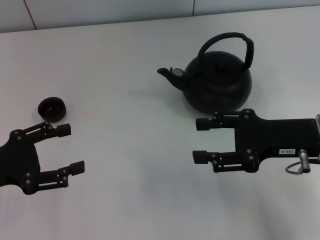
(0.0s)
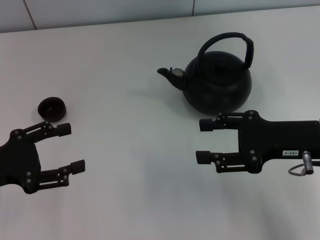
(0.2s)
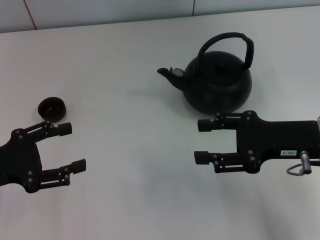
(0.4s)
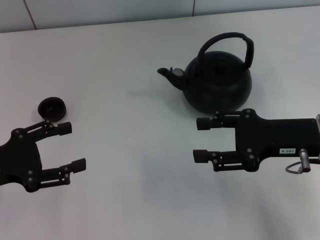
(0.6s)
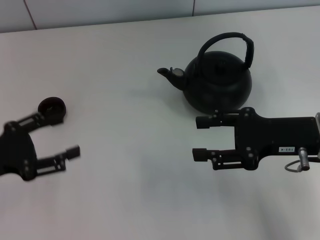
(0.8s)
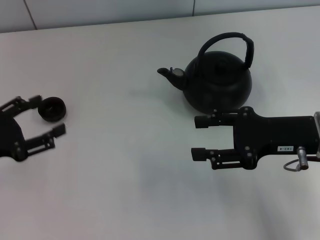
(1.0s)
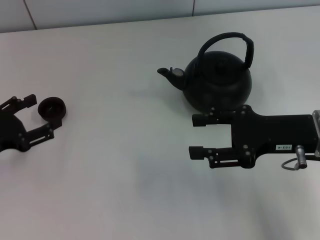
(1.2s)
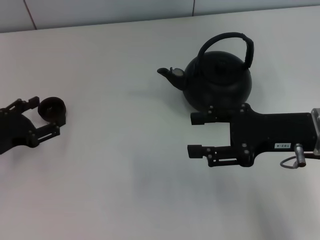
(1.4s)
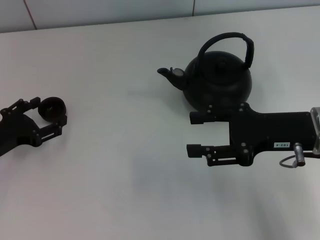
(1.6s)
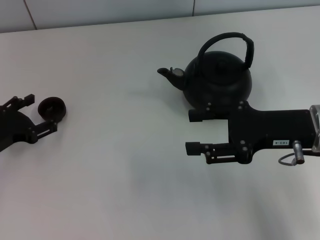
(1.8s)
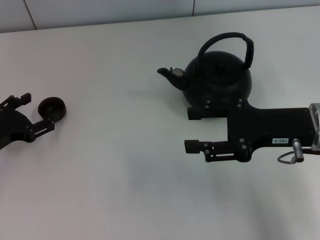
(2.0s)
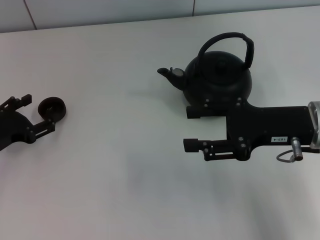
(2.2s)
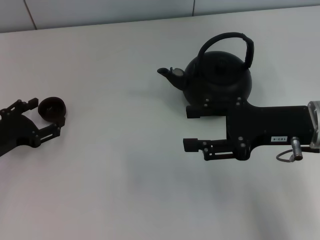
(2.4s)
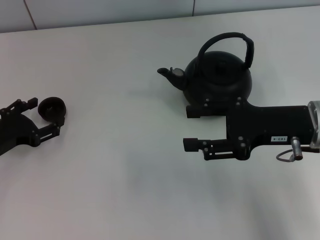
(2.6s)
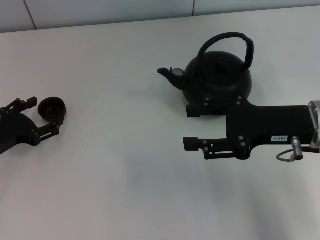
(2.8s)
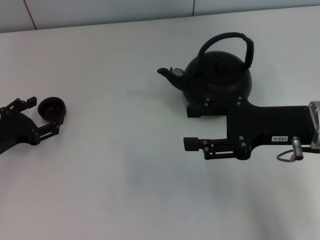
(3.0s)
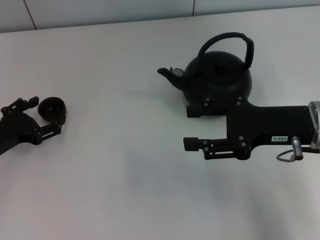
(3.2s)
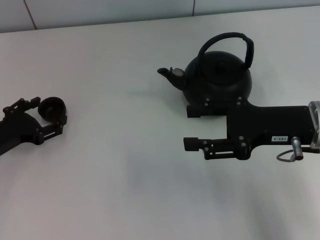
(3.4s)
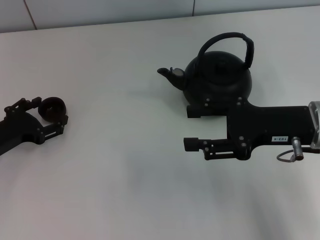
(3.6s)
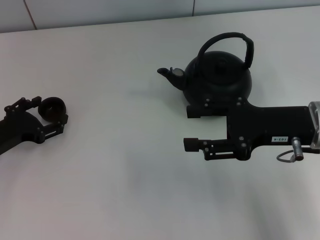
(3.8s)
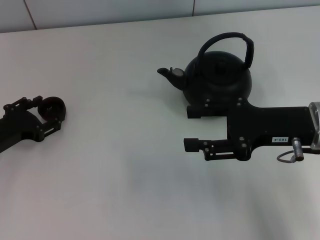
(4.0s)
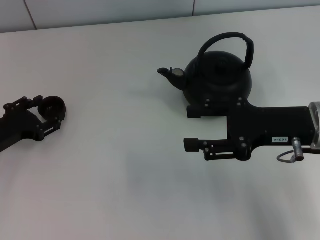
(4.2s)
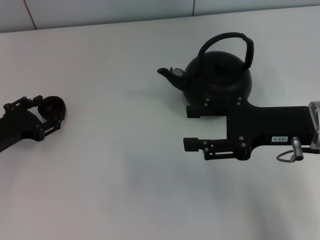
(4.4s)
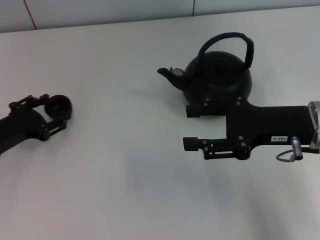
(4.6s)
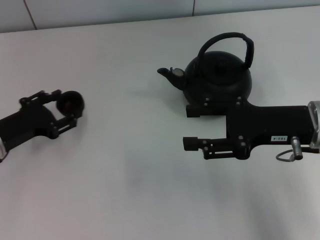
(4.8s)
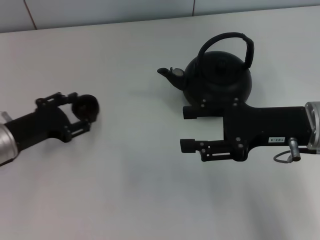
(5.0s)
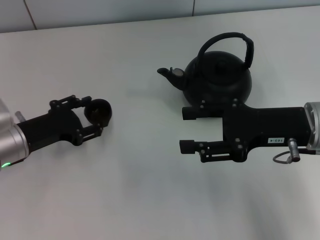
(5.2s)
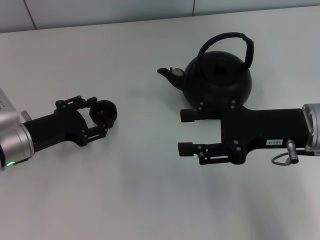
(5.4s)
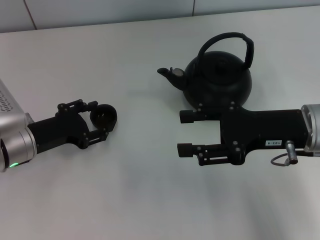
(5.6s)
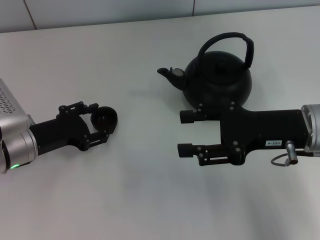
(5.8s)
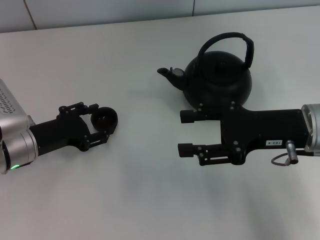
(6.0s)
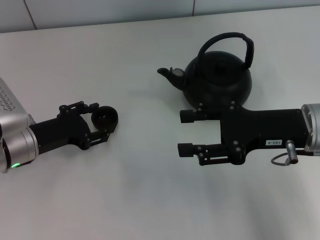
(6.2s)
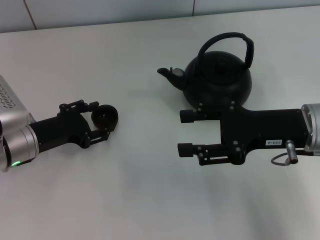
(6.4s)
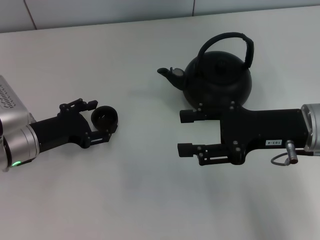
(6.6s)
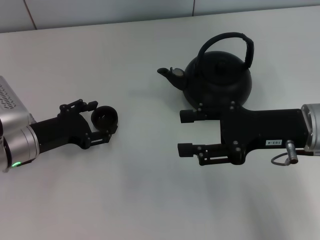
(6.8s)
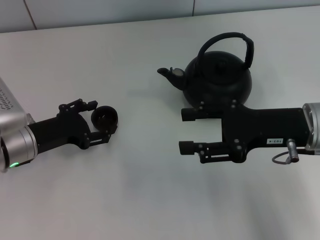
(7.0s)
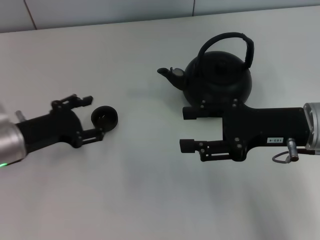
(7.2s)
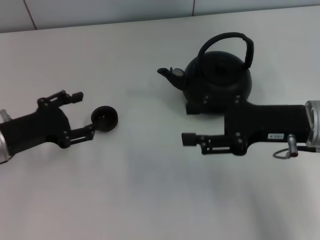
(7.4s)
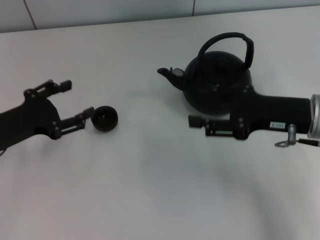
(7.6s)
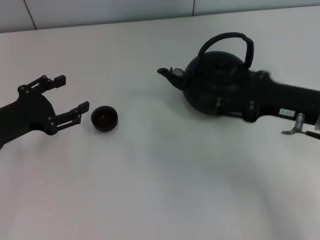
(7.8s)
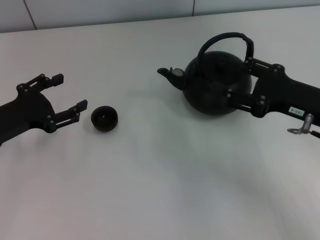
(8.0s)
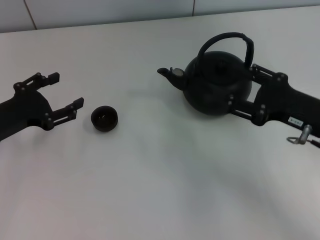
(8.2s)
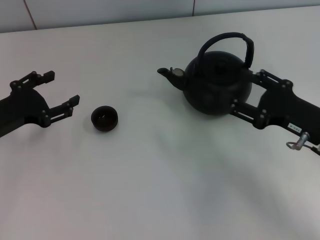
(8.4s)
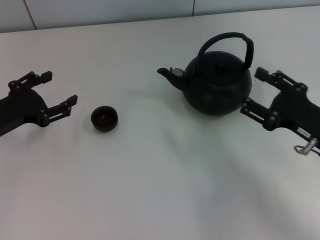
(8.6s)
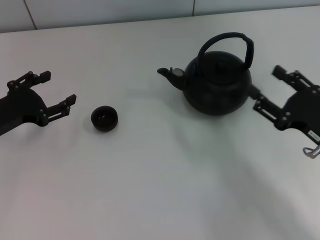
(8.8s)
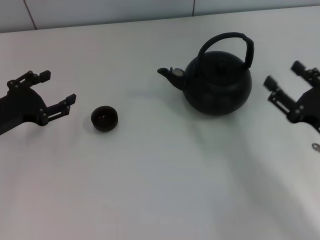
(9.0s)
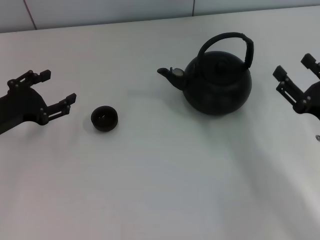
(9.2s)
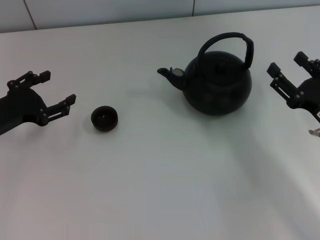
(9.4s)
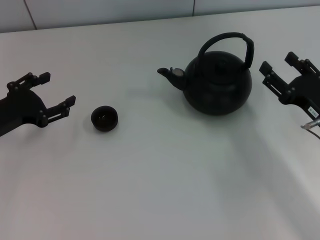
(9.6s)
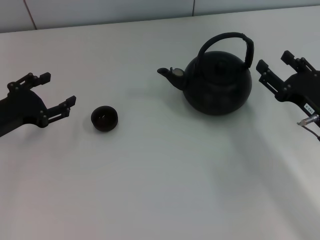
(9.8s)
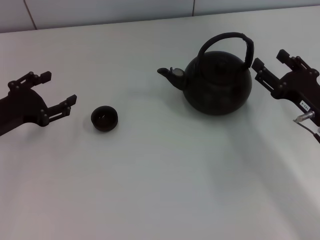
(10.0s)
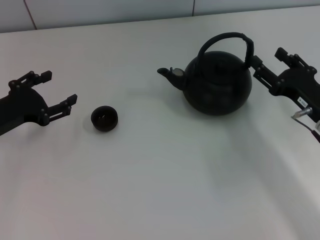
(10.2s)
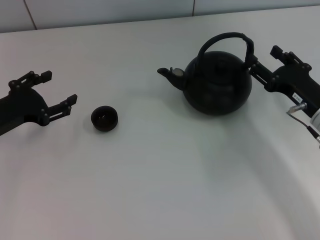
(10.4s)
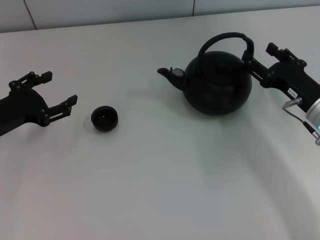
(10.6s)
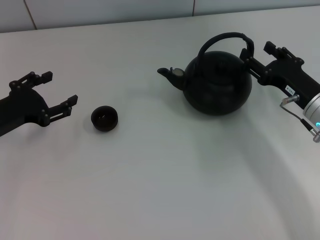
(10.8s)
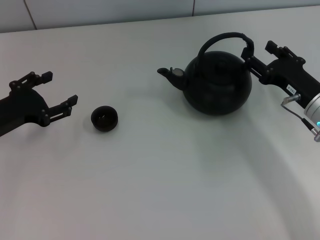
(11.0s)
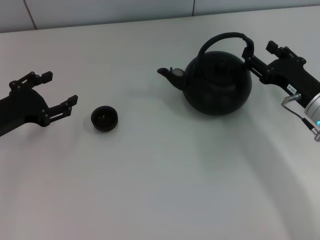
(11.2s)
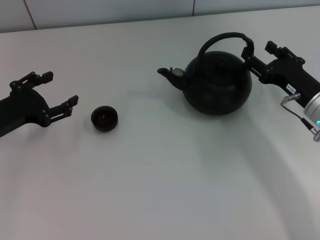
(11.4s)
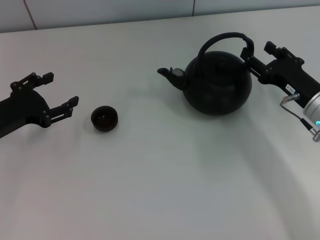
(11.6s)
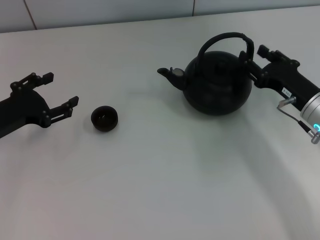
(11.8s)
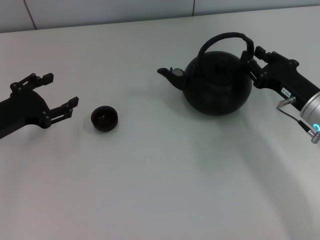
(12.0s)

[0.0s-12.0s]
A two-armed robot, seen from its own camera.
Task of the whole recording: Grasp the handle of the teapot with one hand and pour tea into the teacup.
Step, 0.0s to 5.0s: Pick up the teacup with the left gripper.
Step, 5.2s to 7.8s: Place the teacup in the center of view with the left gripper.
0.0s to 1.6s: The left gripper travels downward by about 5 cm.
1.6s to 3.0s: The two grippers keep their place.
3.0s to 4.4s: The left gripper closes up.
4.4s to 6.0s: The left gripper shifts about 5 cm to the right, and opens up.
6.0s to 7.6s: The left gripper ends up roughly 5 cm from where it was, and opens.
7.6s to 9.0s: The right gripper shifts some 10 cm backward and downward.
9.0s to 10.4s: The right gripper heads forward, covering approximately 5 cm.
10.4s to 12.0s: The grippers stay close to where they were, moving slightly.

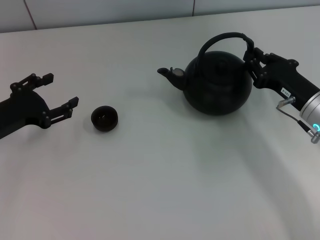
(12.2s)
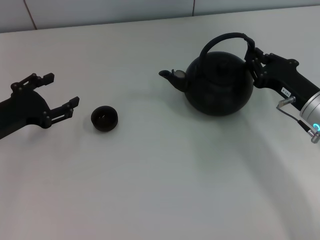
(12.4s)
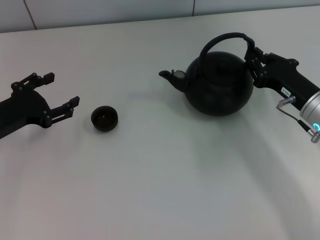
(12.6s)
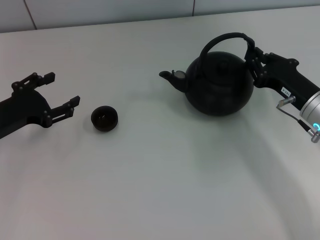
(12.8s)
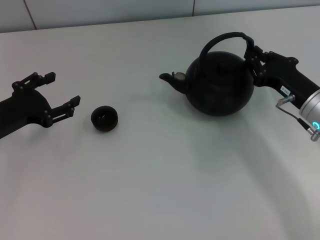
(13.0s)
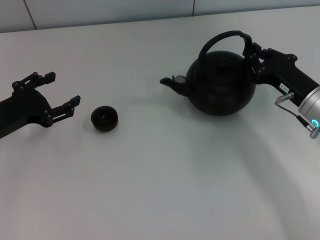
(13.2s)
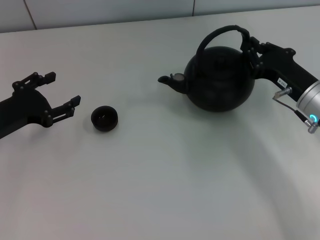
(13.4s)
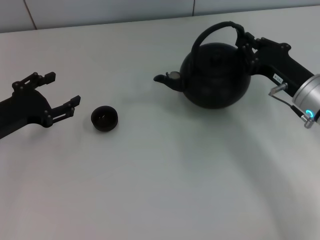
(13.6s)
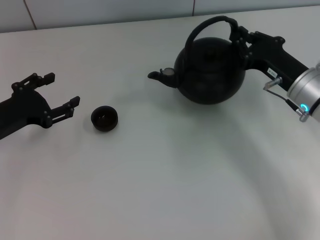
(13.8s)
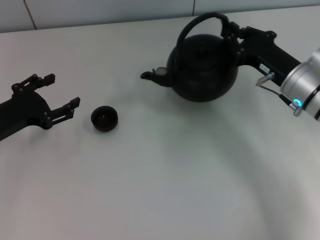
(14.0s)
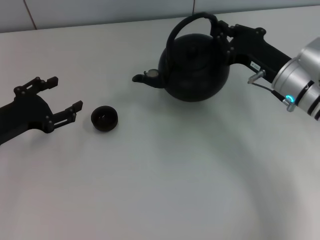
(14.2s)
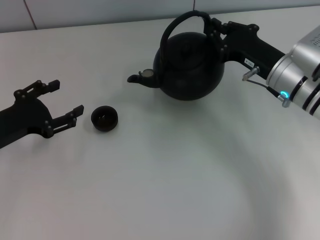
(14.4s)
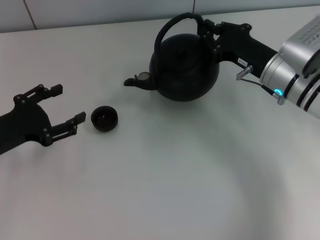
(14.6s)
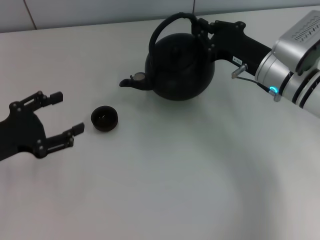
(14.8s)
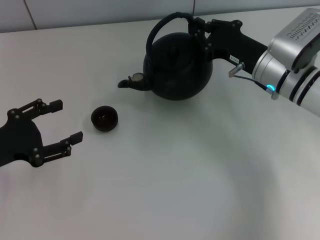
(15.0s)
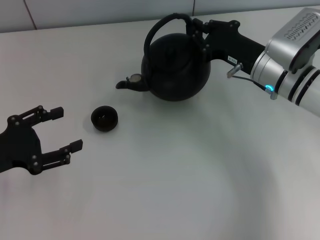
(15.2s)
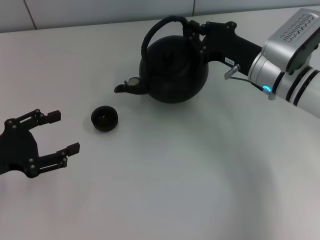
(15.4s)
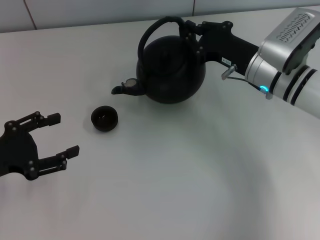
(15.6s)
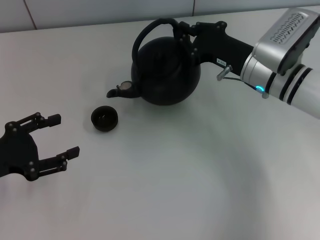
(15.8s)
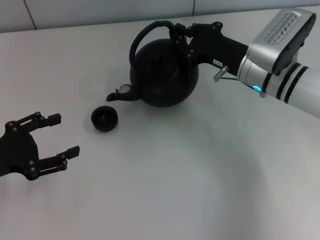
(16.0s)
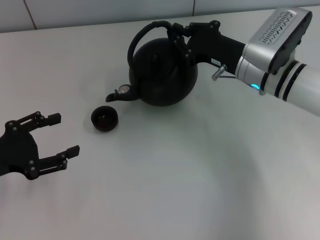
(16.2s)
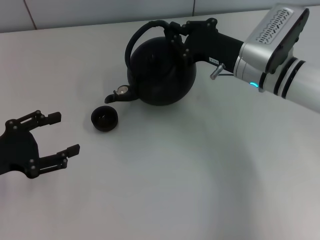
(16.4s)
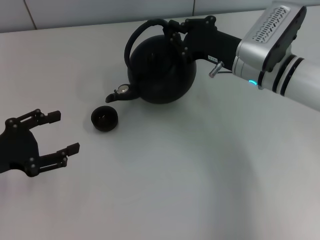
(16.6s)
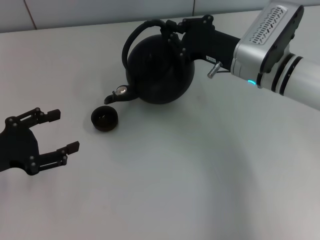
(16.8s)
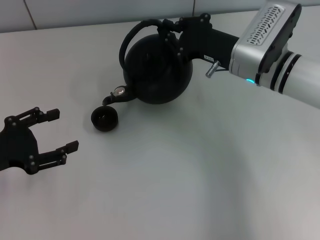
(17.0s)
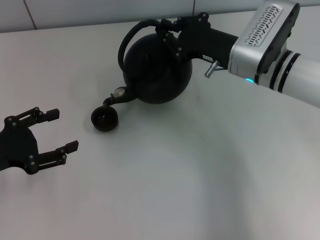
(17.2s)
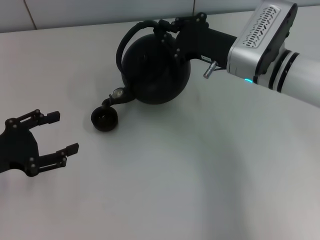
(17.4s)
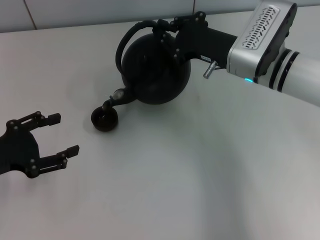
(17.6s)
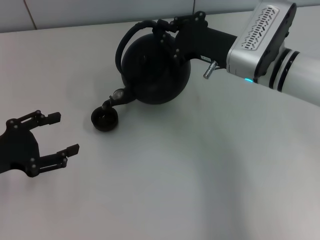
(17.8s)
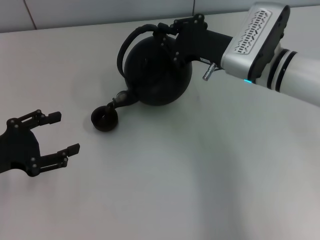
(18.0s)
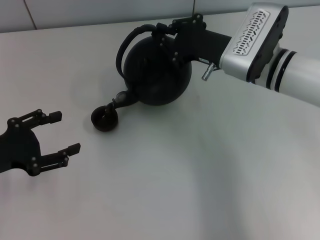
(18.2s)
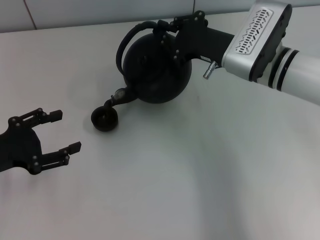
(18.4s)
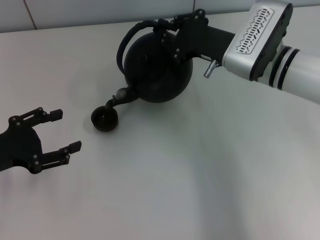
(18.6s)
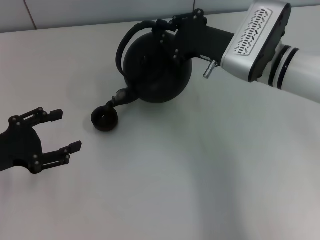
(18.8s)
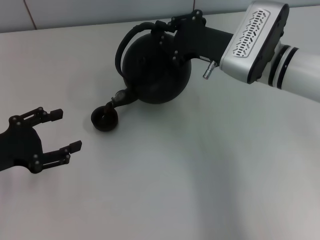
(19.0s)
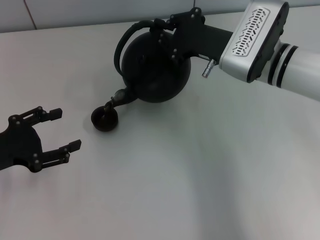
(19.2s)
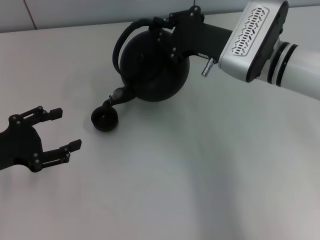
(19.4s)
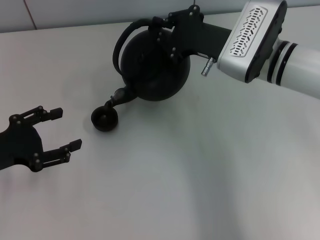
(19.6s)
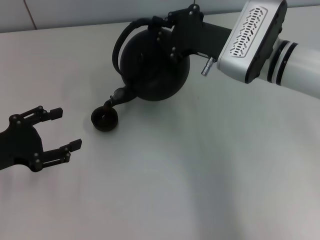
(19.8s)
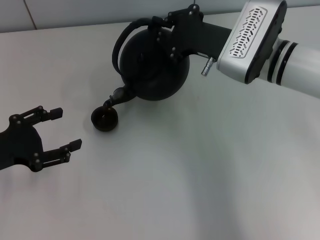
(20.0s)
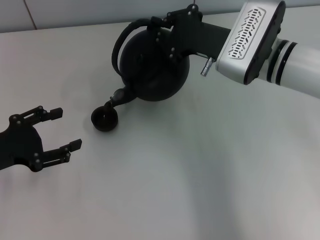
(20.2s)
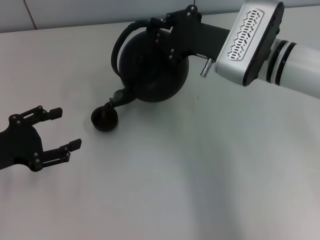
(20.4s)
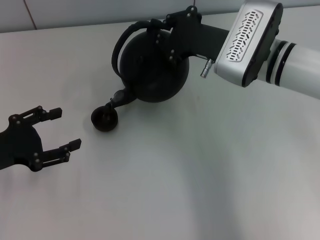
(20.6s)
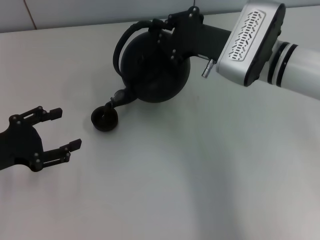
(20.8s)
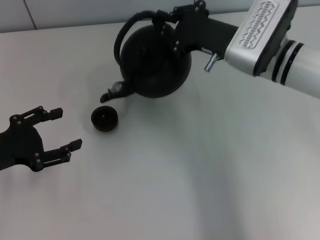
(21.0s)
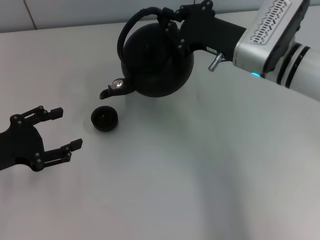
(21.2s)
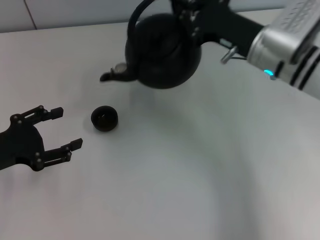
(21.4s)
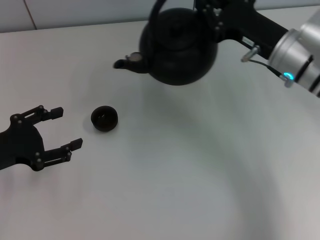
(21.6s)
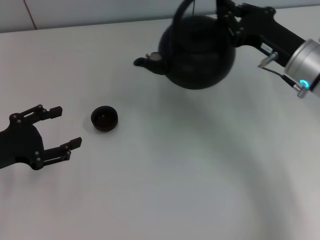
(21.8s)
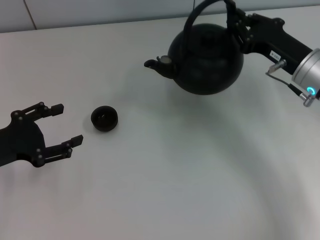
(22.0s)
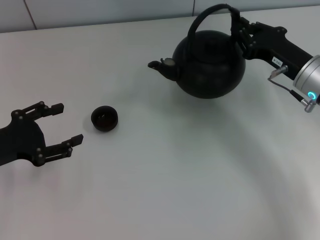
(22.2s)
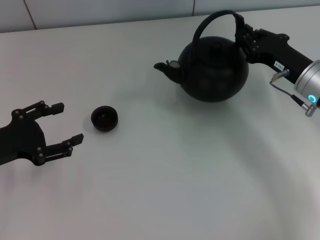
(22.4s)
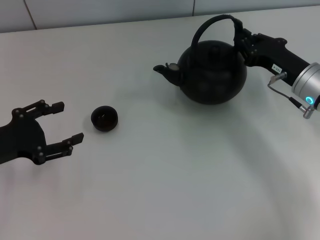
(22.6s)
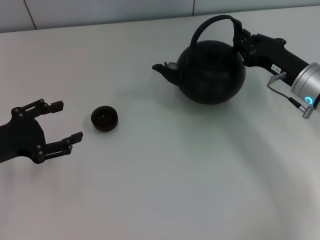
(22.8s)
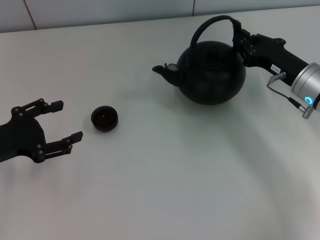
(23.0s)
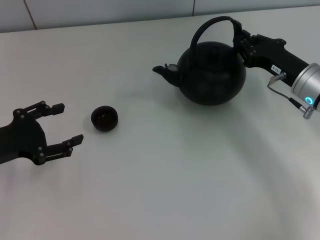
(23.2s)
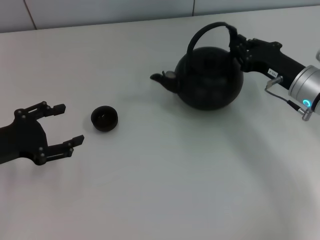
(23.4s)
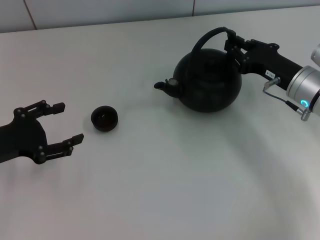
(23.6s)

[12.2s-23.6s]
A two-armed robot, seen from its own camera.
Task of the whole recording: Grasp the handle of the teapot with one hand and pour tea into the teacup.
12.2s to 13.6s: The grippers make only small movements.
13.6s to 15.0s: The right gripper ends up about 5 cm from where it was. The left gripper moves backward, approximately 5 cm.
15.0s to 16.4s: There are only small adjustments of the grippers.
16.4s to 19.4s: The grippers stay close to where they were, moving slightly.
19.4s to 20.8s: Both grippers stay put.
20.8s to 22.2s: The right gripper heads to the right, covering approximately 10 cm.
22.2s to 23.6s: The grippers stay close to where they were, moving slightly.
